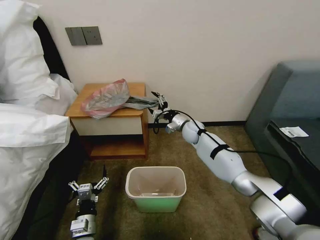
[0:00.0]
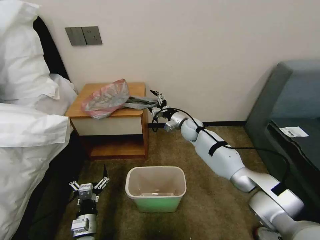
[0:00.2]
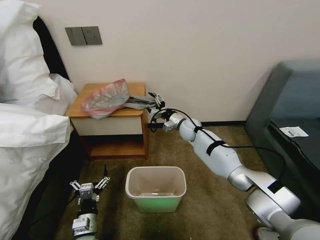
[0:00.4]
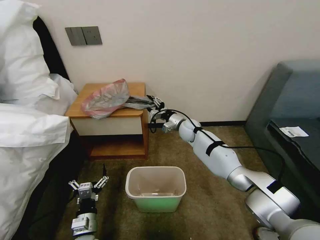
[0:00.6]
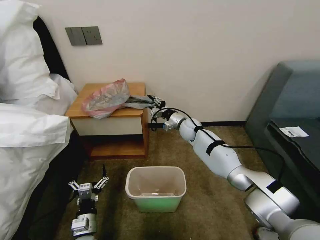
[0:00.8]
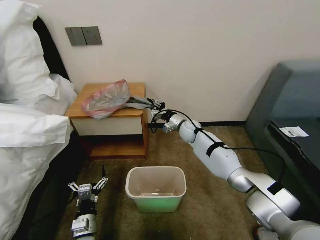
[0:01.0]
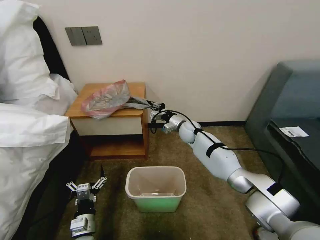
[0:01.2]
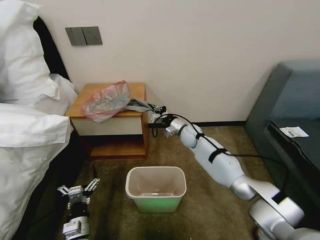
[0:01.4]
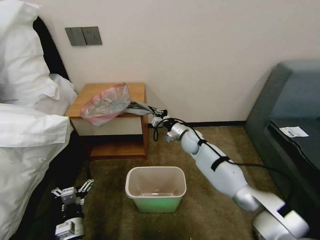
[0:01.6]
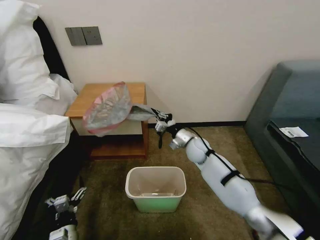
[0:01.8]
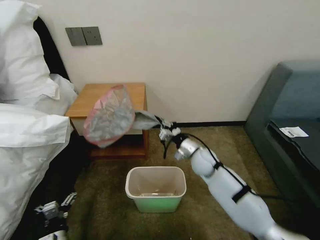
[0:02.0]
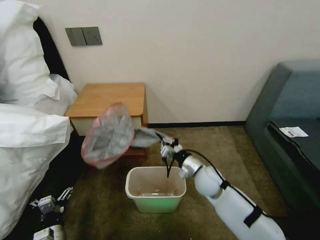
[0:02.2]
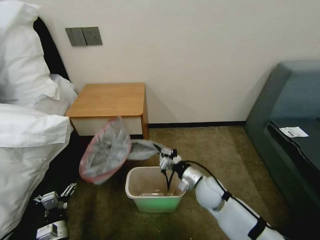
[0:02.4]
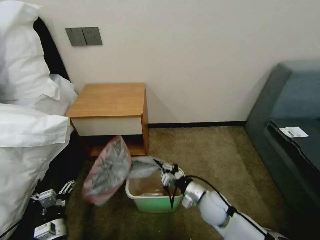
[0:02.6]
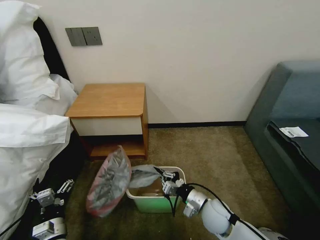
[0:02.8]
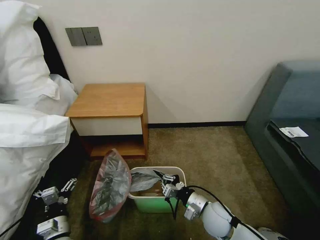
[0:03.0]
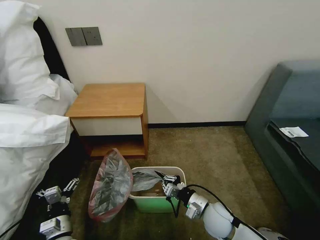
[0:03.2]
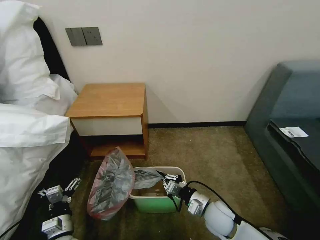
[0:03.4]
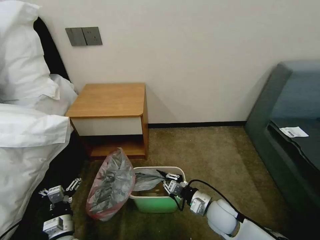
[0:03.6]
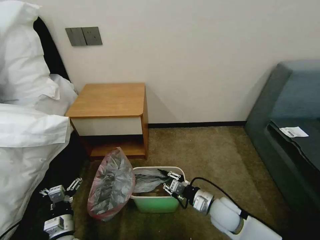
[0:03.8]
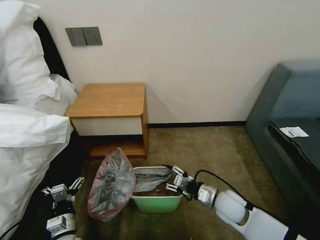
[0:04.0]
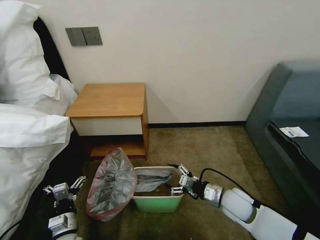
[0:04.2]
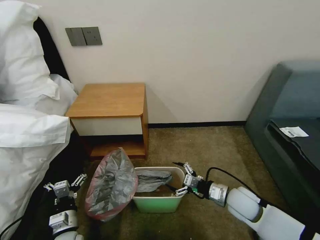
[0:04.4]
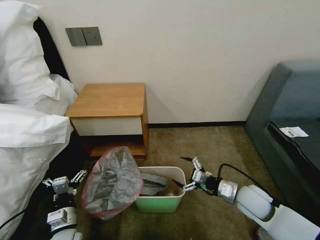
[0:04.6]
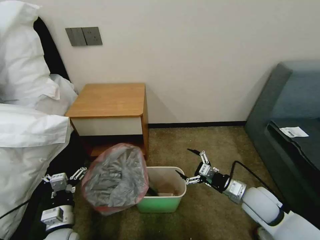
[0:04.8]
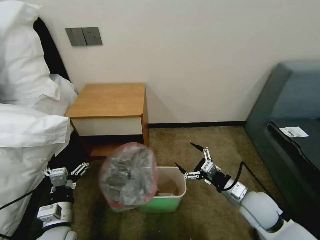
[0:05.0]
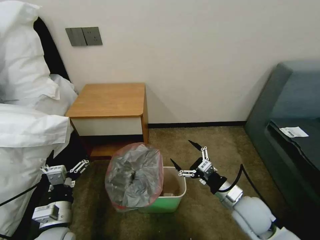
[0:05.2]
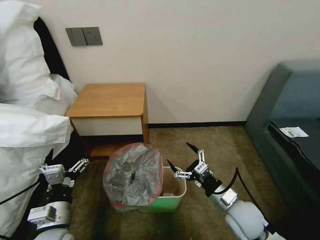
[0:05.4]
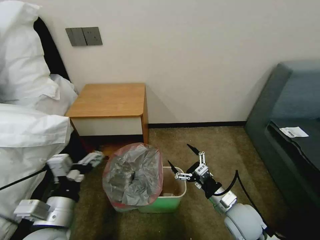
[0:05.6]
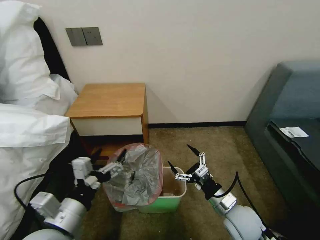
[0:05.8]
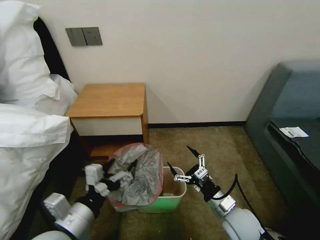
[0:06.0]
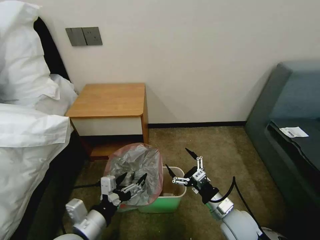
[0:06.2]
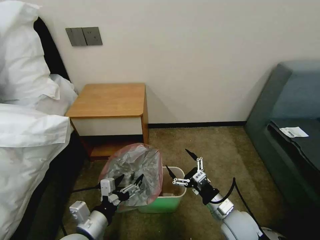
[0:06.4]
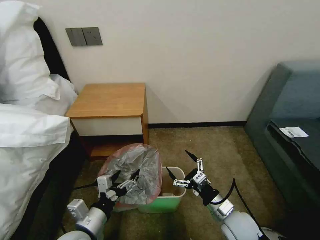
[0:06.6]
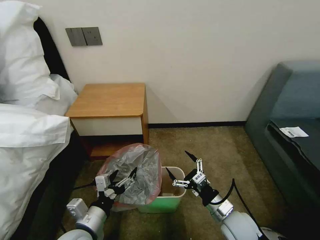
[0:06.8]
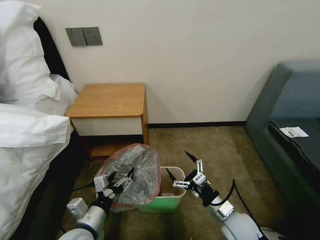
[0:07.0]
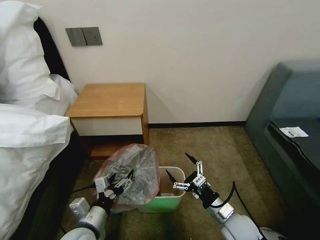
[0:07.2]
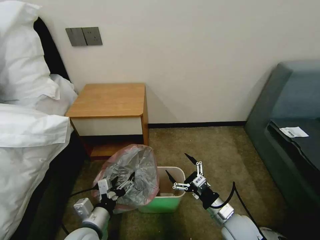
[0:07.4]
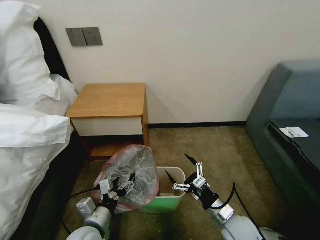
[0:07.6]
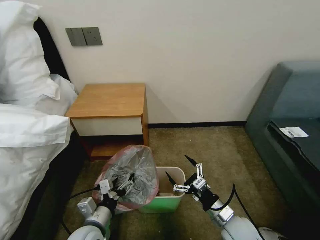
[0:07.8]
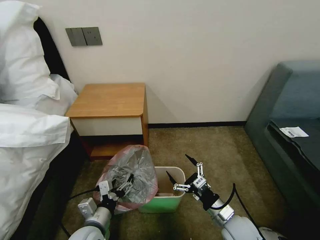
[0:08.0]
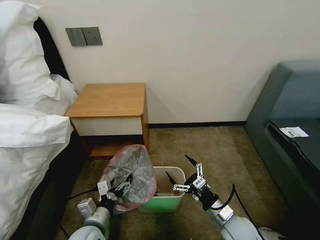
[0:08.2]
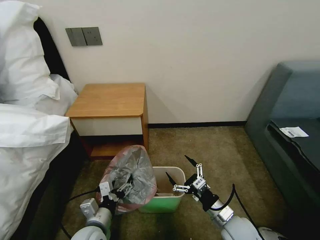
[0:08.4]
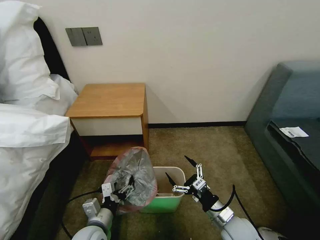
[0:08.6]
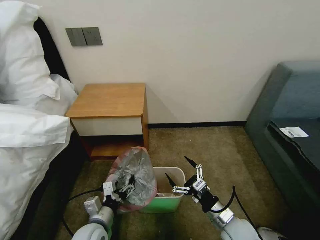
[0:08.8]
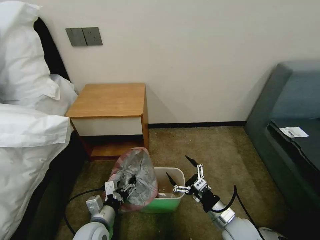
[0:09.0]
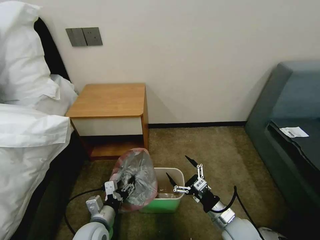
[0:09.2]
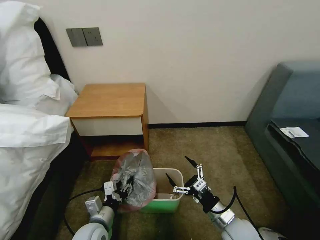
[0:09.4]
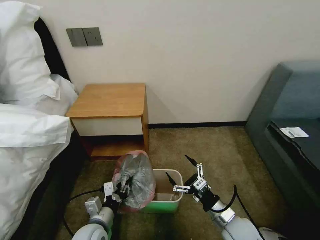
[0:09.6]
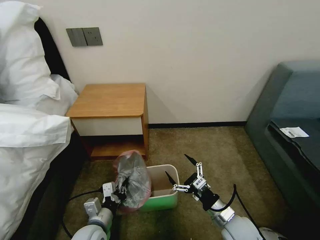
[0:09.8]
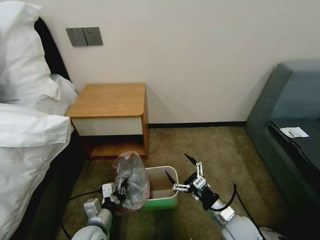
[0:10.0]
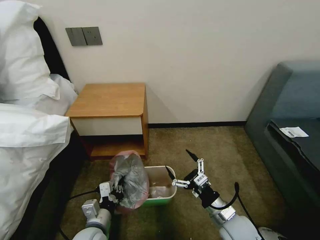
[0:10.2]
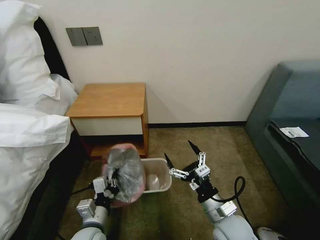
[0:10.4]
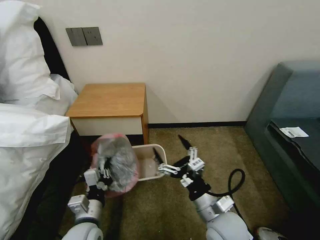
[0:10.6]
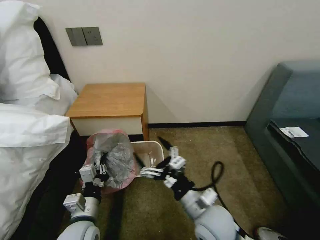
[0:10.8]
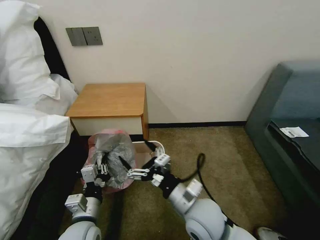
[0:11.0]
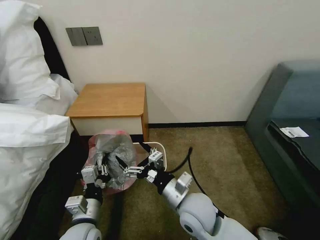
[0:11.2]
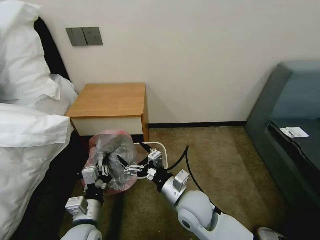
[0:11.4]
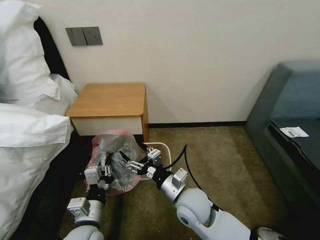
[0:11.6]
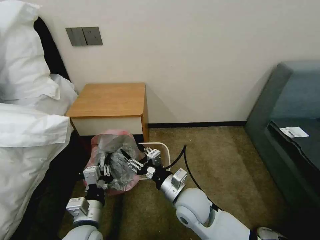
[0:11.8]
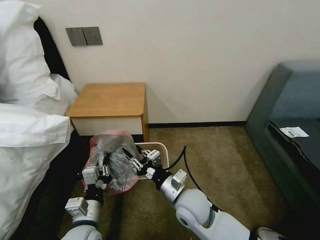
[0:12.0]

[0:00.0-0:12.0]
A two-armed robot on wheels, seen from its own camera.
Task of the whole recording: Pick up the garbage bag from the table and place it over the trash can.
0:00.0 to 0:01.6: The right gripper closes its fingers.
0:01.6 to 0:03.0: The right gripper goes some 25 cm backward.
0:03.0 to 0:04.4: The right gripper moves to the right, some 10 cm, and opens its fingers.
0:04.4 to 0:06.0: The right gripper moves backward, roughly 5 cm, while the left gripper is displaced upward by some 20 cm.
0:06.0 to 0:07.6: The left gripper goes approximately 10 cm downward.
0:07.6 to 0:09.0: The grippers stay close to where they were, moving slightly.
0:09.0 to 0:10.4: The left gripper closes. Meanwhile the right gripper goes some 5 cm upward.
0:10.4 to 0:12.0: The right gripper shifts some 10 cm to the left and forward, and closes.

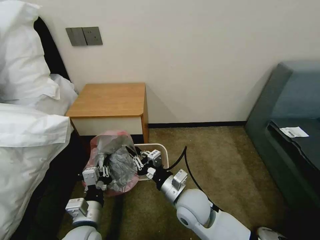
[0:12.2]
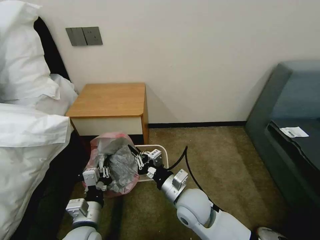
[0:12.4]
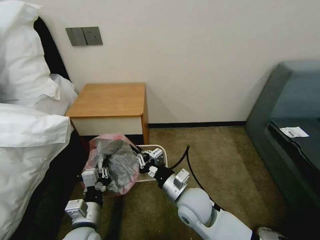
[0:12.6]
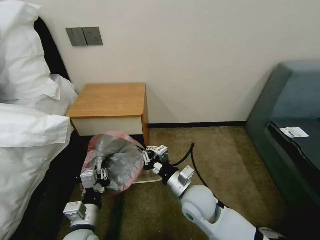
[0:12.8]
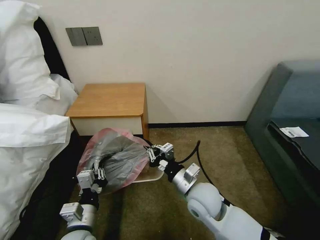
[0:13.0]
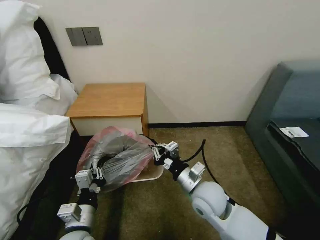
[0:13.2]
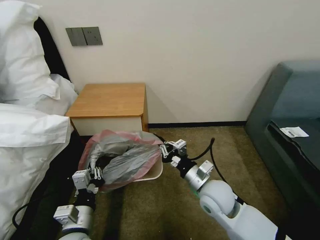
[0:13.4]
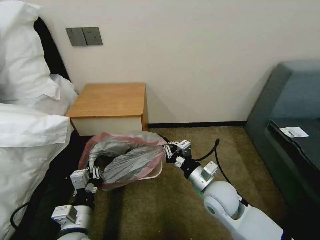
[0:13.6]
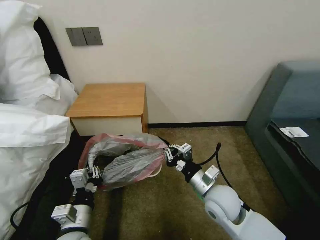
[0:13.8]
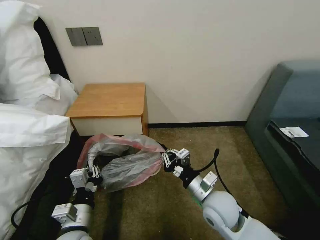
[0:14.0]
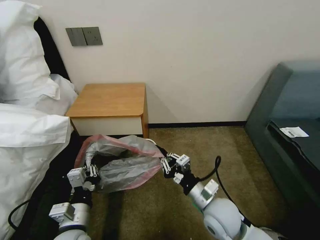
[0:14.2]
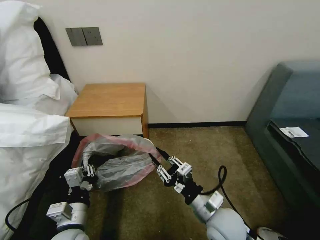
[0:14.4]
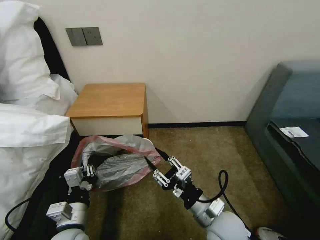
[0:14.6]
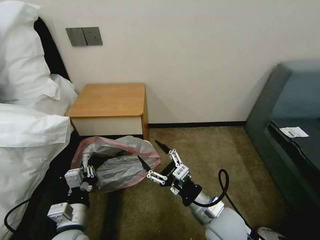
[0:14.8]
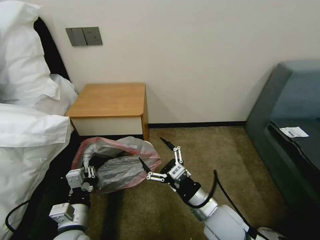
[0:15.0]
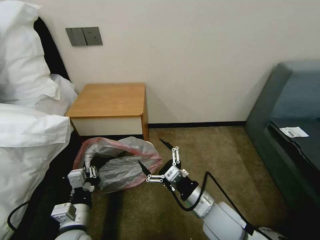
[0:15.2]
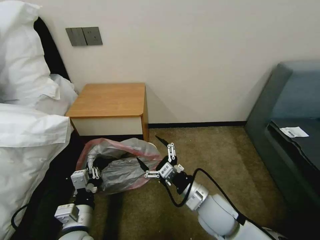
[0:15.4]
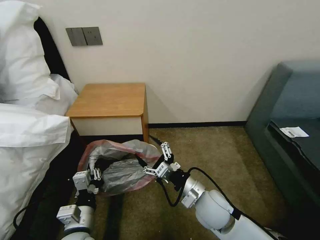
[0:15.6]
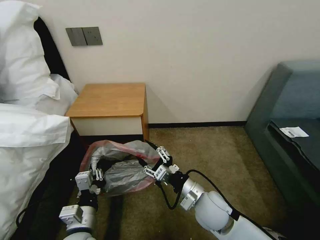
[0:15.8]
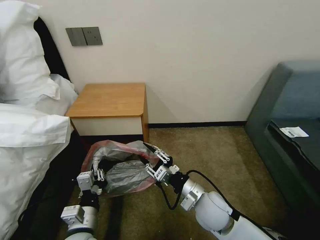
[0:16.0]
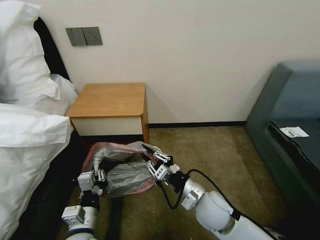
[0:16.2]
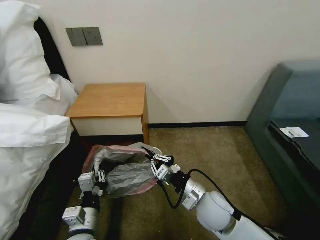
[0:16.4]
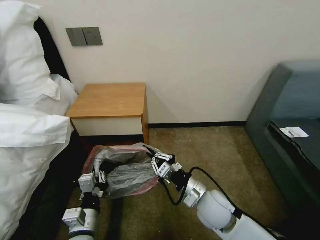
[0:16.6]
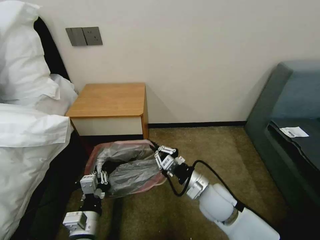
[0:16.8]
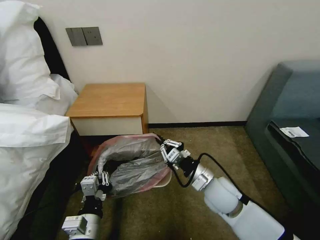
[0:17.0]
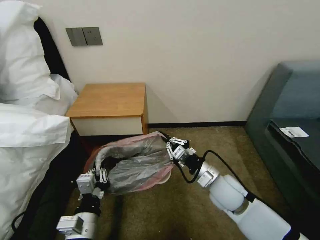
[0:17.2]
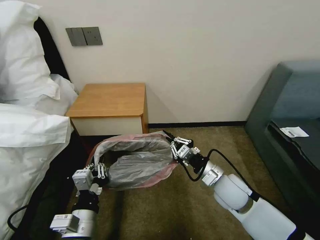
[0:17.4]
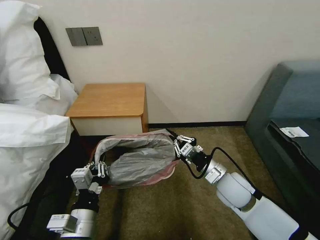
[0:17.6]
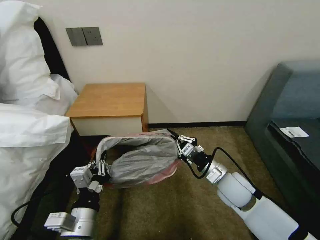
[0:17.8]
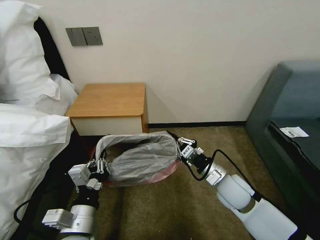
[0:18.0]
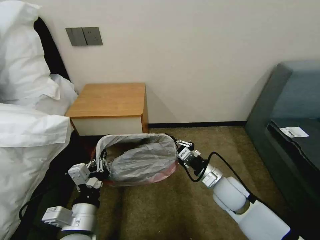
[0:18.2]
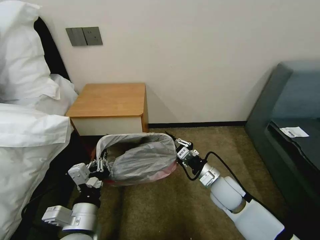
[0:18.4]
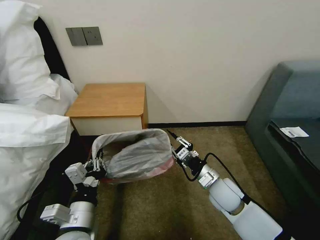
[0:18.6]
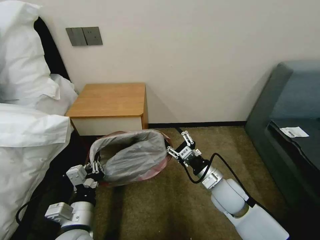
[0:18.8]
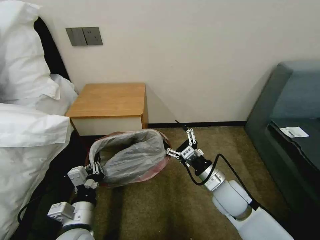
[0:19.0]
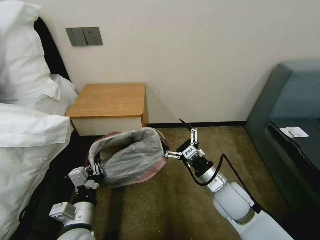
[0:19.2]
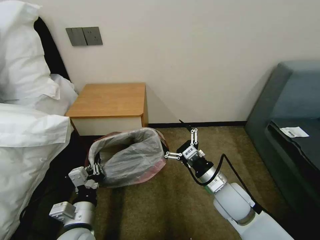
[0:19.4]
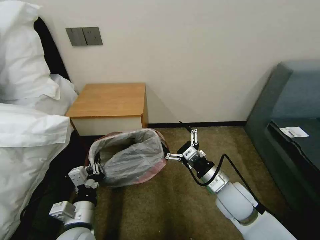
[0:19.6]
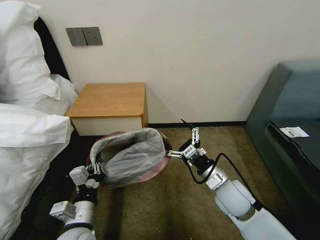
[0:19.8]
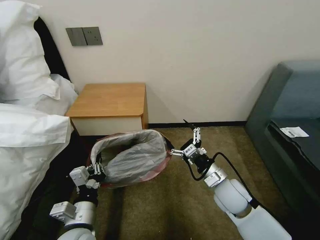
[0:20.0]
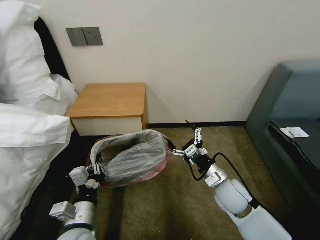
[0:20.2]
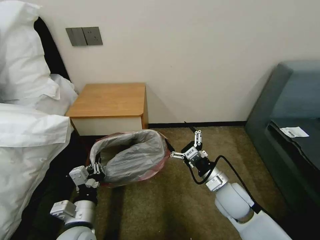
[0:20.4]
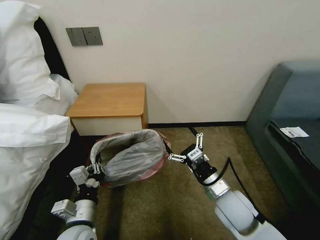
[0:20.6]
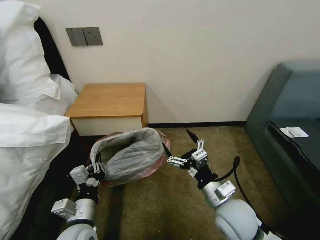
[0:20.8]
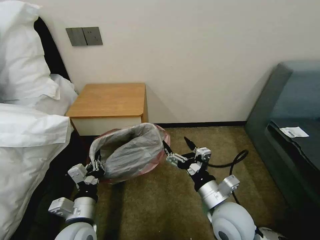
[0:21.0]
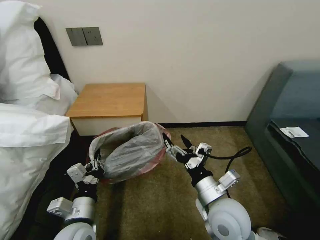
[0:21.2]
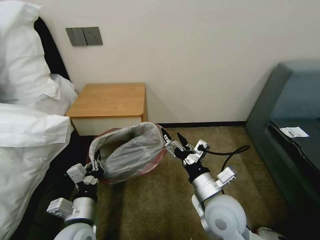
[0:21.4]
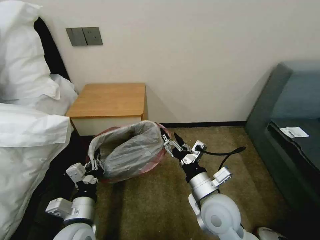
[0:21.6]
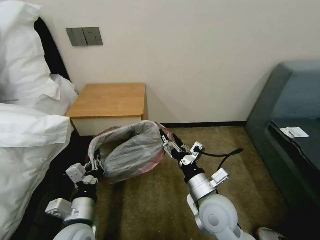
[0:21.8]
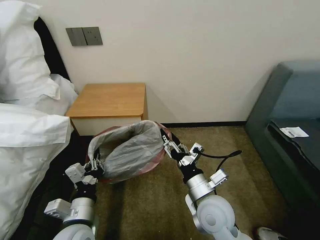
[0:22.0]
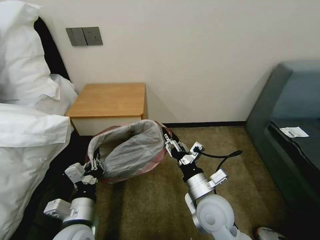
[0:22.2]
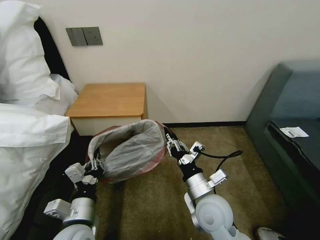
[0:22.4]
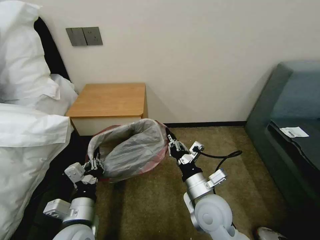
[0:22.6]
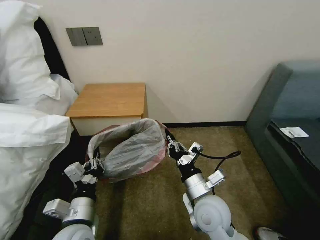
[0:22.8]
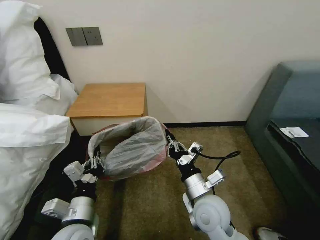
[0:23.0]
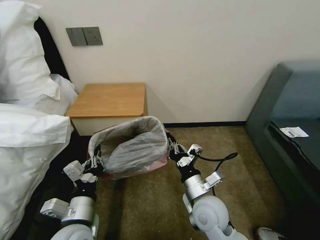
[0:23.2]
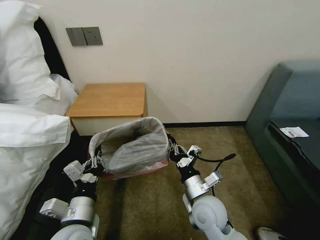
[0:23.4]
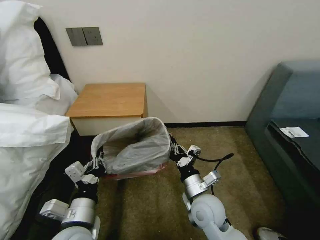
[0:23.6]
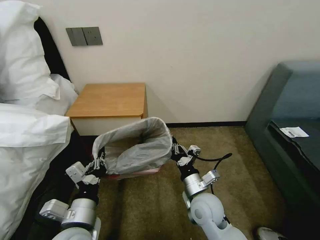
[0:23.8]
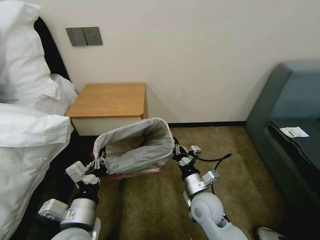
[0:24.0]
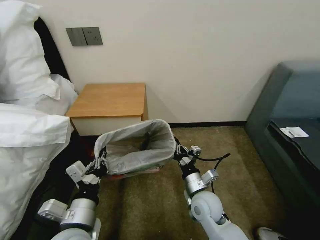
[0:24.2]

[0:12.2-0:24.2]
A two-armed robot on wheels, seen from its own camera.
Task of the whole recording: Pick up the garbage bag from the table and place it over the trash can.
0:12.2 to 0:13.8: The right gripper goes roughly 10 cm to the right.
0:13.8 to 0:15.2: The right gripper shifts by about 5 cm, and opens.
0:15.2 to 0:16.6: The right gripper closes up.
0:16.6 to 0:18.2: The left gripper goes roughly 5 cm upward, while the right gripper travels to the right by approximately 5 cm.
0:18.2 to 0:19.8: The right gripper opens up.
0:19.8 to 0:21.2: The right gripper is displaced backward by some 5 cm.
0:21.2 to 0:22.6: The right gripper closes.
0:22.6 to 0:24.2: The right gripper goes about 5 cm downward.
